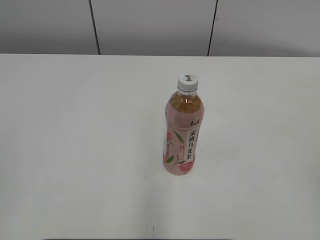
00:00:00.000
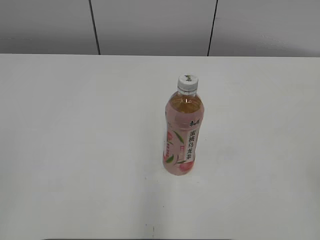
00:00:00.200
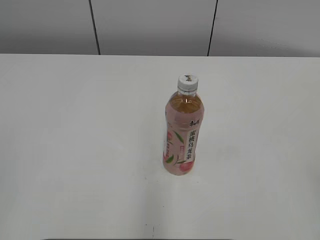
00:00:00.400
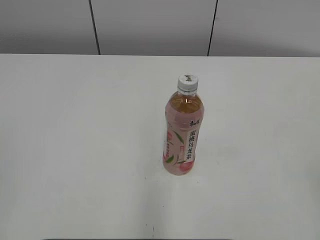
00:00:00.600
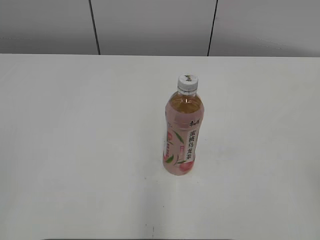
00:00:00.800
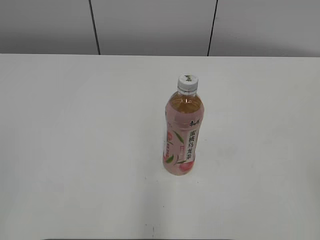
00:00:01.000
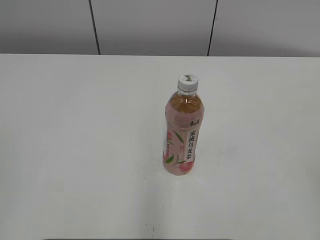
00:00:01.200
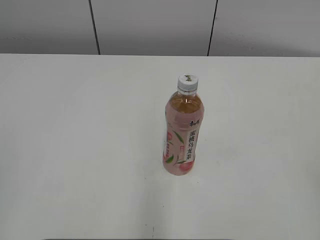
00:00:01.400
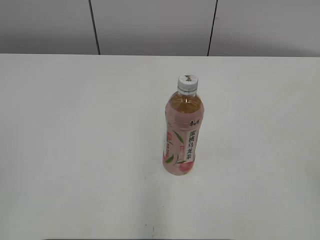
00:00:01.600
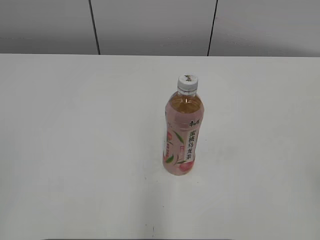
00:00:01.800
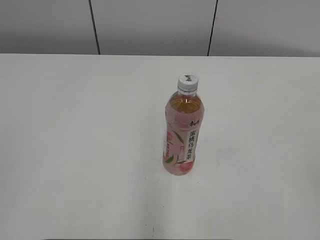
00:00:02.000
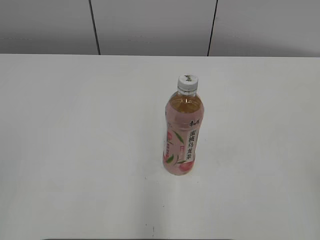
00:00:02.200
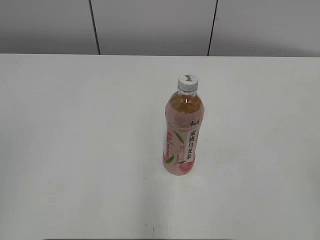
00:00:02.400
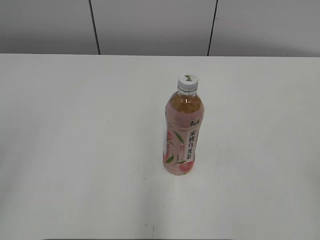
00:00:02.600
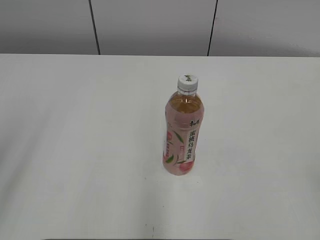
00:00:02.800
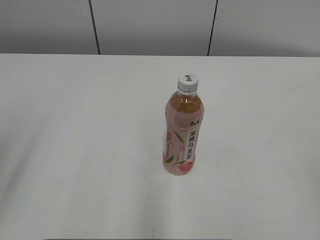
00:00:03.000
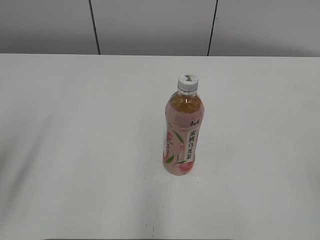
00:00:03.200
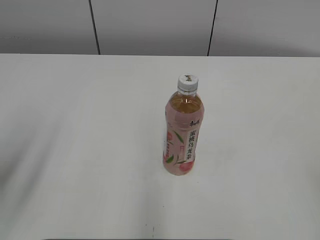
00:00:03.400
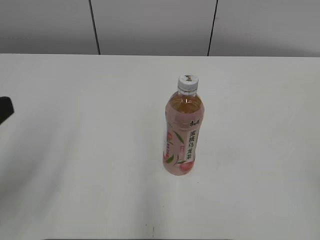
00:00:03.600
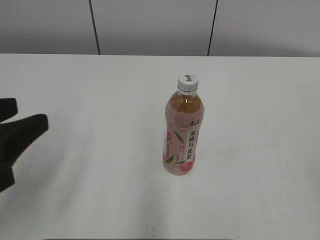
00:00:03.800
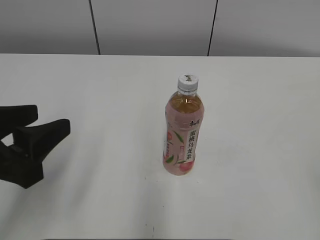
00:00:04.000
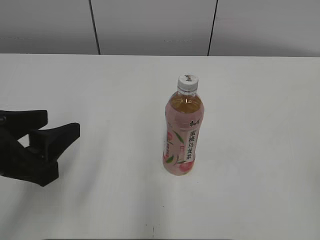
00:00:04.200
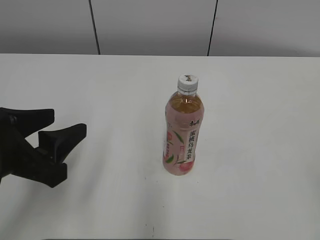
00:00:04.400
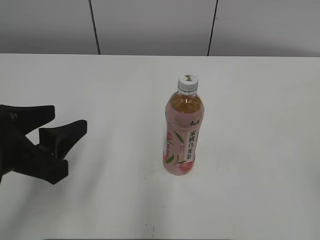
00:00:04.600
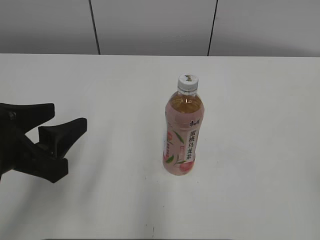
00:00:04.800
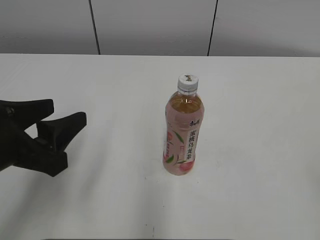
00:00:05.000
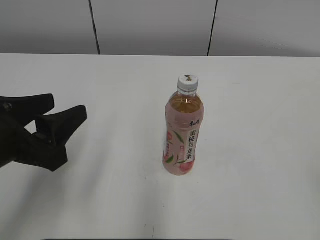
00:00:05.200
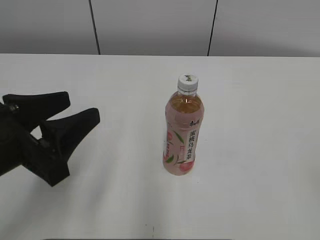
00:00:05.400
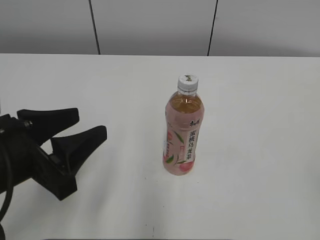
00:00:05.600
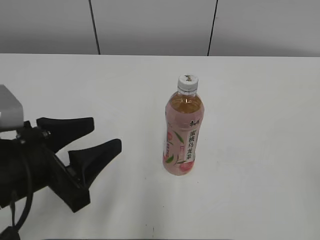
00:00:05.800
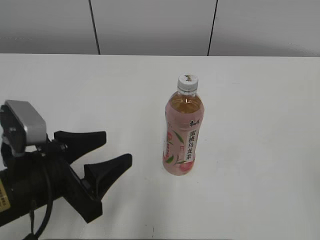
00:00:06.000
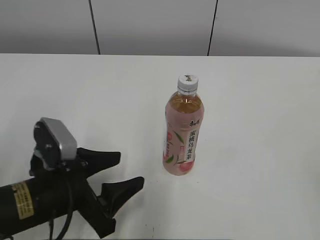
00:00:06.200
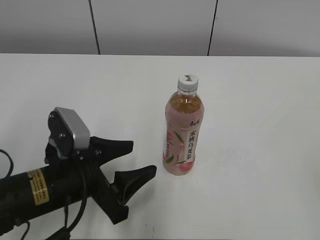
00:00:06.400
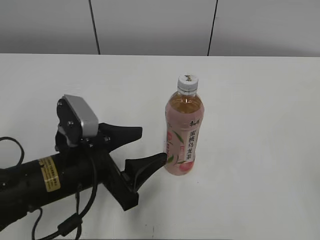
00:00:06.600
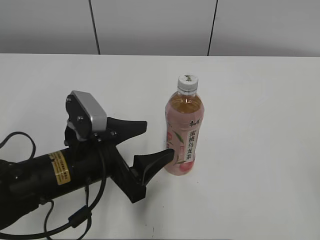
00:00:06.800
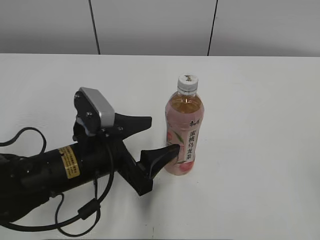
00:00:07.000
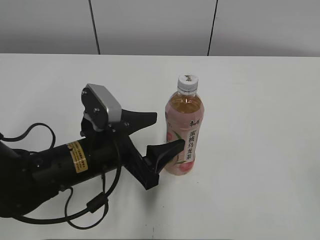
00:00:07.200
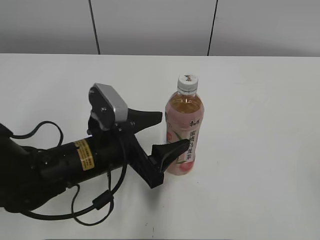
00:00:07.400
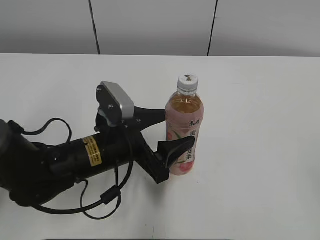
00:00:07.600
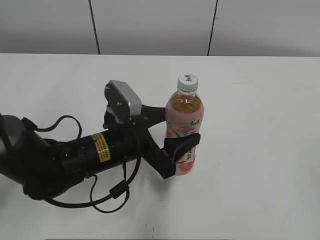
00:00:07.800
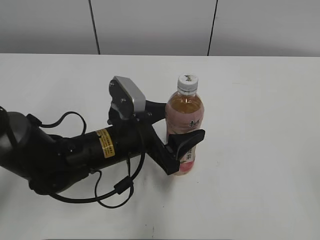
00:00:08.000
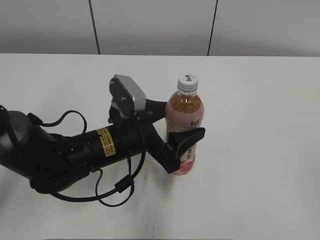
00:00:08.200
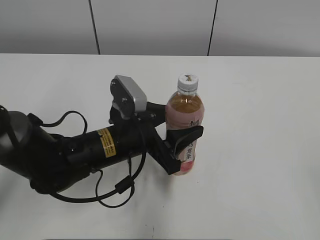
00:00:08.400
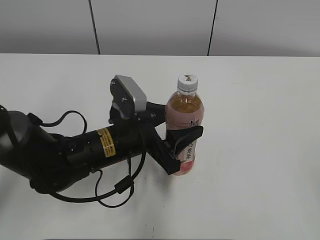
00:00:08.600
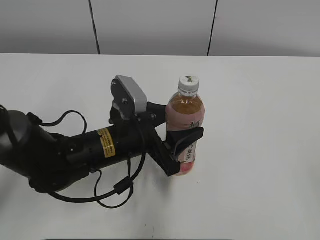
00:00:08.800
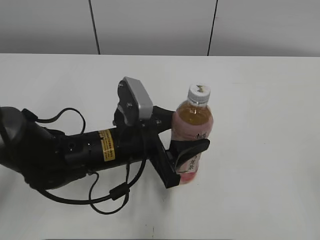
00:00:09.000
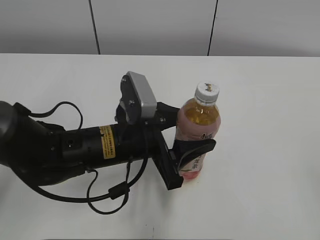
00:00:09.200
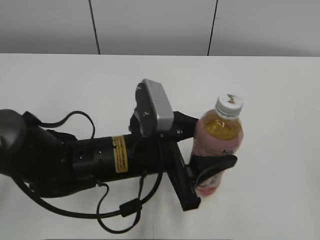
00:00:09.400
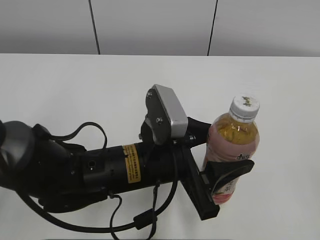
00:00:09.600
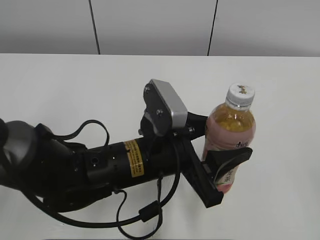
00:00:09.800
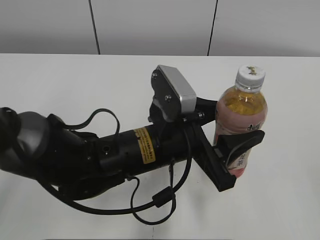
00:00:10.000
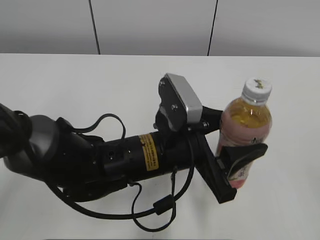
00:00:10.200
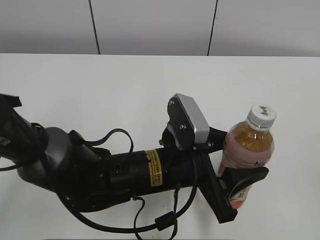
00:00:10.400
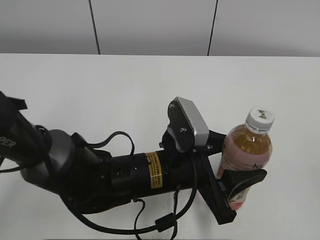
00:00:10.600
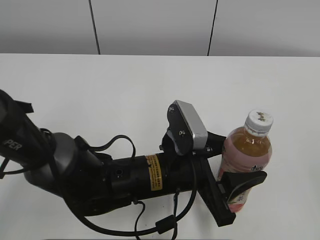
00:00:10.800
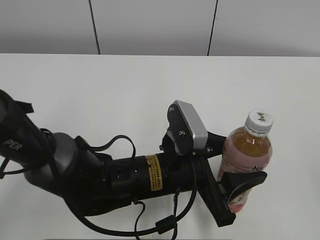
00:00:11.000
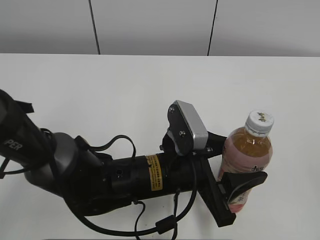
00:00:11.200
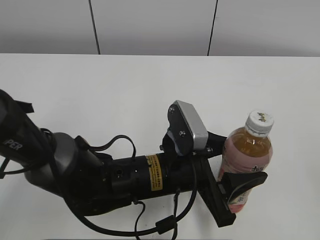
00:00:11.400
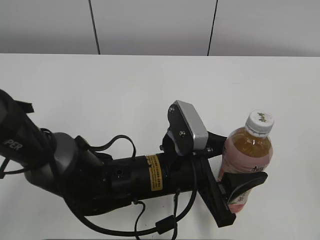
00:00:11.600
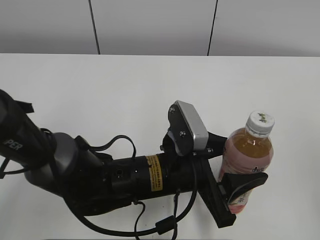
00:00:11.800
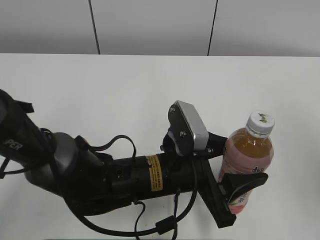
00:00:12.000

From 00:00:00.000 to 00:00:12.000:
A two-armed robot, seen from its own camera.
Step, from 00:00:00.000 to 00:00:08.600: Grab the Peach Oolong Tea with the left hand.
From 00:00:03.000 to 00:00:04.400: The left gripper is displaced to the right and downward by roughly 15 cm.
From 00:00:04.400 to 00:00:06.000: The left gripper heads downward, covering some 5 cm.
From 00:00:06.000 to 00:00:07.600: The left gripper goes about 10 cm to the right and forward.
From 00:00:07.600 to 00:00:09.000: The left gripper closes.
From 00:00:09.000 to 00:00:10.400: The left gripper shifts about 5 cm to the right.
From 00:00:10.400 to 00:00:12.000: The right gripper shifts about 10 cm forward.

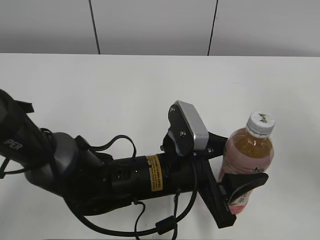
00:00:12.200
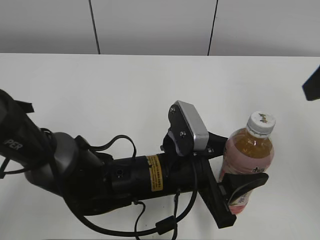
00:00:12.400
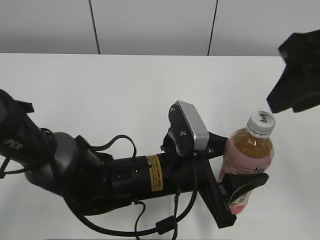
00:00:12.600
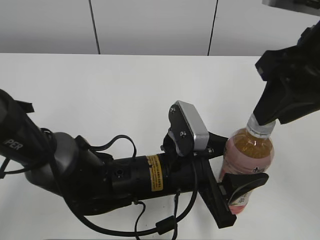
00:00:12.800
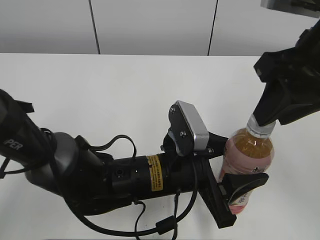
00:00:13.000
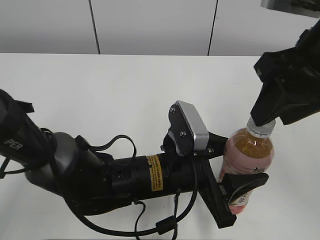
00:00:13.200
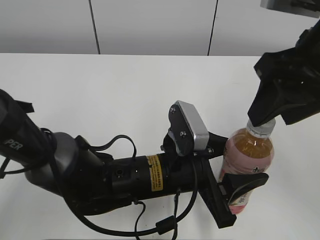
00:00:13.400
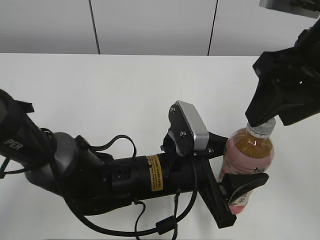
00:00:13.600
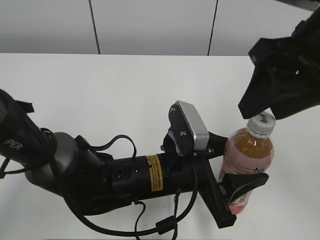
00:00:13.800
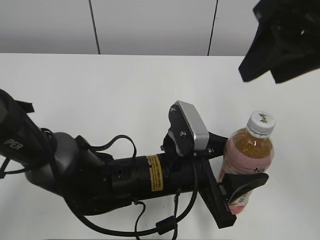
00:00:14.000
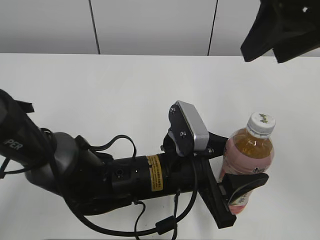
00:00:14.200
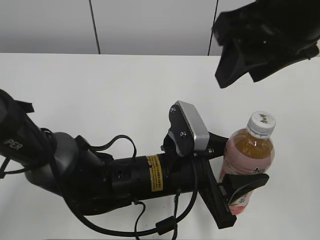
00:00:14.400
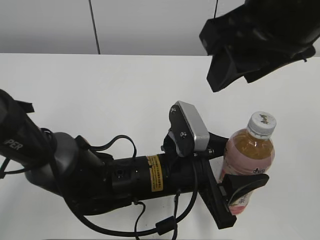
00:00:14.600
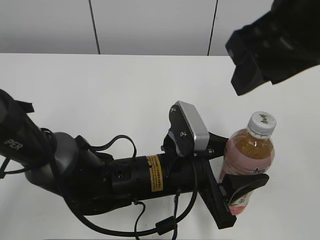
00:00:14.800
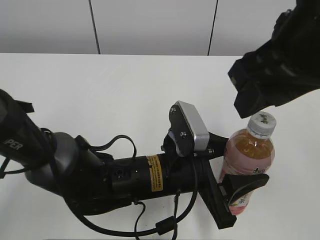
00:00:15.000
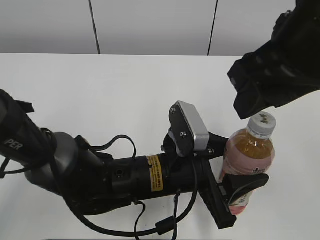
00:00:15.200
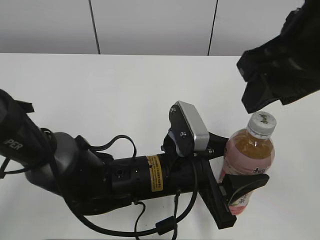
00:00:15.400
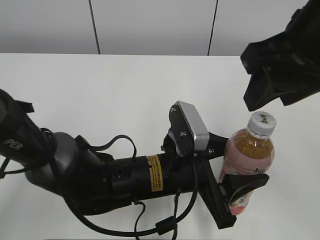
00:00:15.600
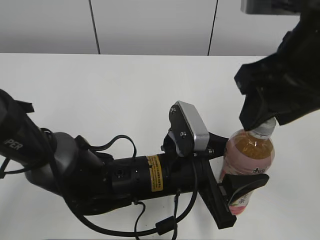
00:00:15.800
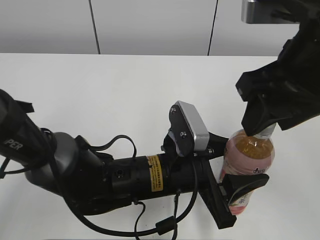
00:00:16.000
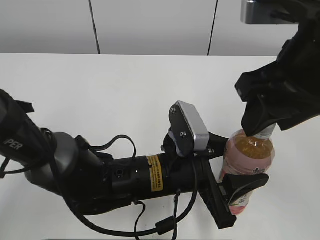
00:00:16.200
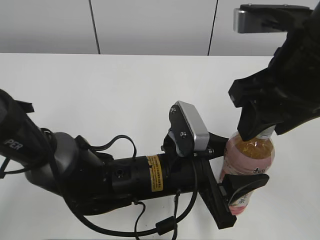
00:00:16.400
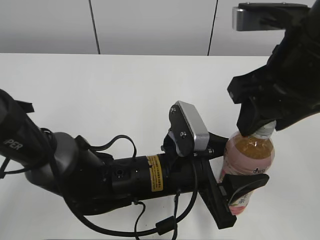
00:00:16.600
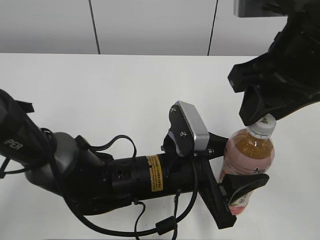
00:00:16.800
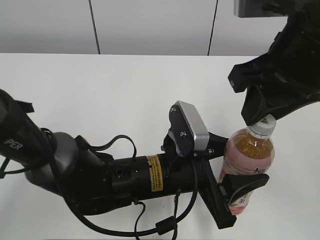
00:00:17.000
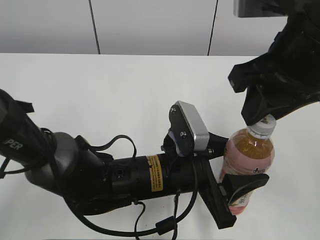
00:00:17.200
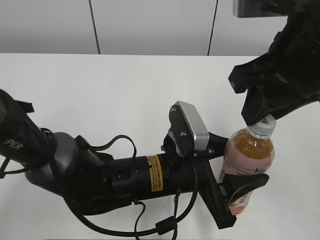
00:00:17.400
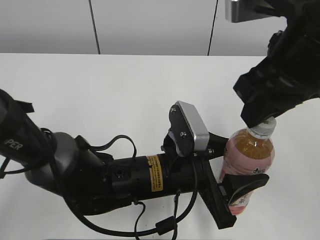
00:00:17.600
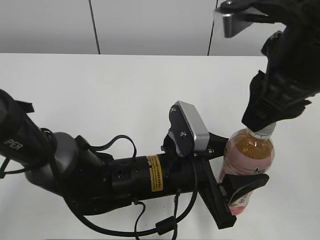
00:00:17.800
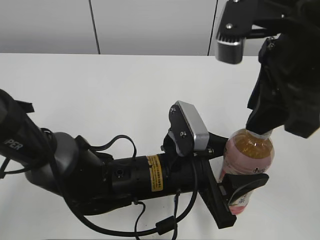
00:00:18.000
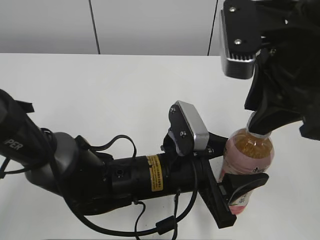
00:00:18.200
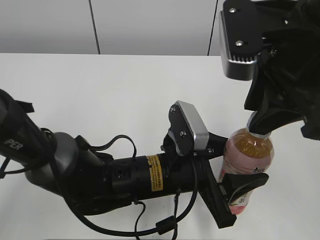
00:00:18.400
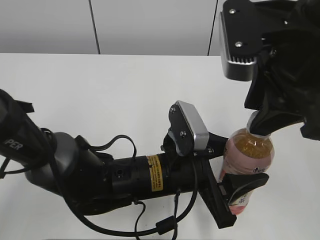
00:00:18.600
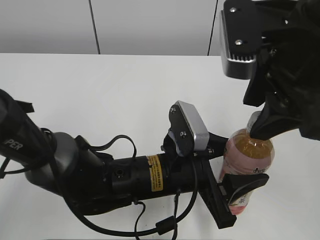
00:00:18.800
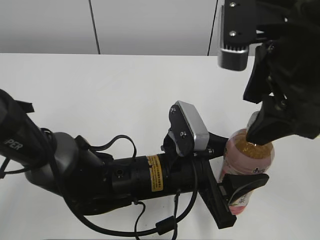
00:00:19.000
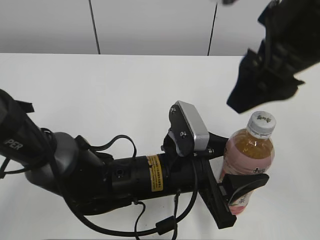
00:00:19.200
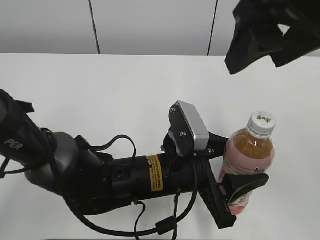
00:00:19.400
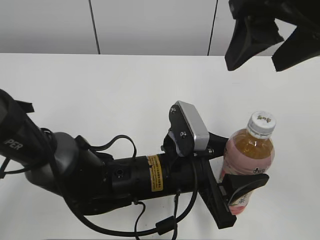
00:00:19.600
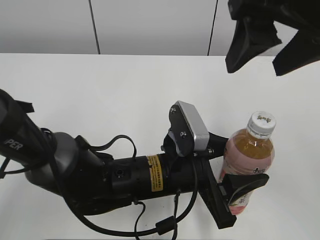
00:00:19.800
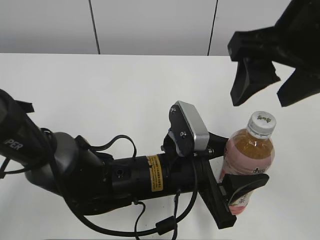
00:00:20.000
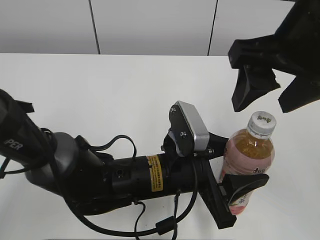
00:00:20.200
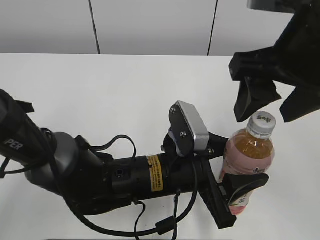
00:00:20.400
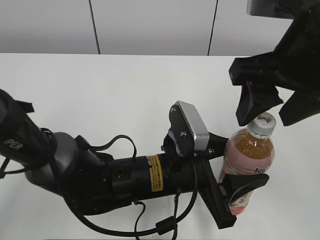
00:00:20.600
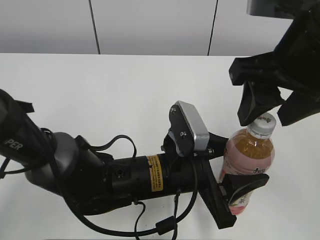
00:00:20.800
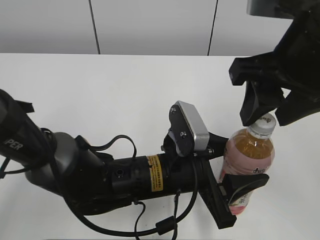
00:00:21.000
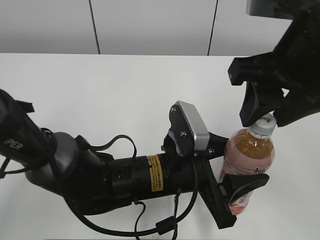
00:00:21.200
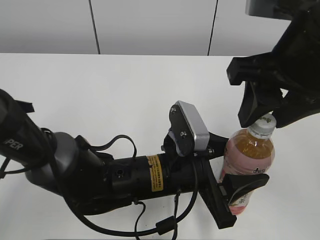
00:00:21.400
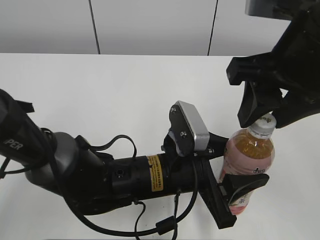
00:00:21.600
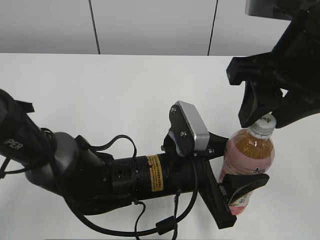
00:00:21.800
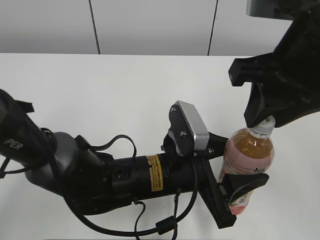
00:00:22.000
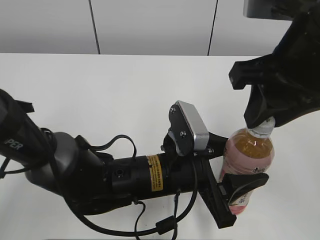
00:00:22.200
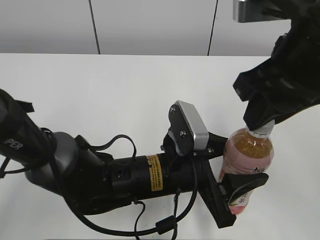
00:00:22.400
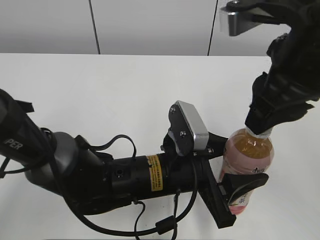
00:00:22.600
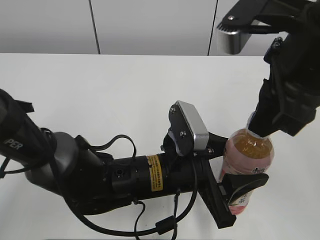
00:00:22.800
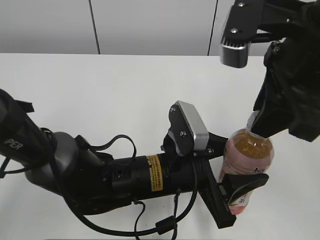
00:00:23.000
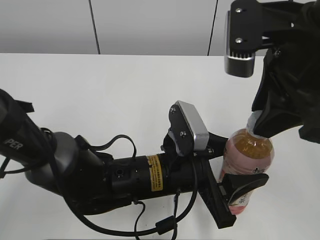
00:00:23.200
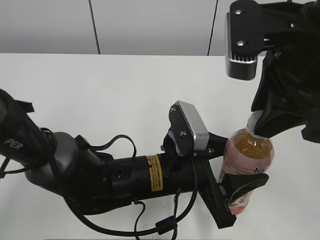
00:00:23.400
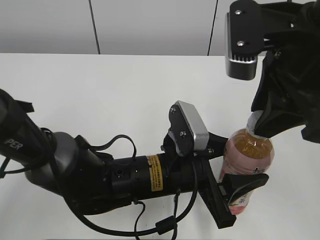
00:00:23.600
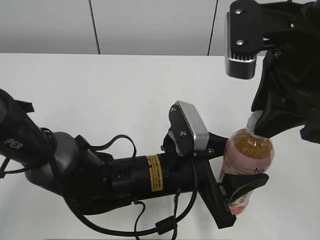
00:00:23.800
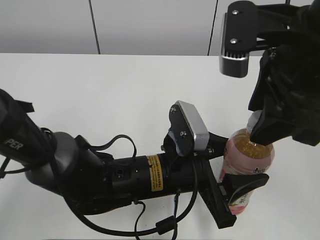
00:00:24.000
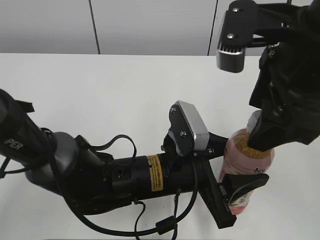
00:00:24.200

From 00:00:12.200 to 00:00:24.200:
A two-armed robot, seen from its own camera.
Step, from 00:00:12.200 to 00:00:17.000: Move the Peach Oolong Tea from left to right.
From 00:00:12.200 to 00:00:13.800: The right gripper is displaced to the left by roughly 10 cm.
From 00:00:15.200 to 00:00:16.600: The grippers move only a little.
From 00:00:16.600 to 00:00:18.200: The right gripper closes up.
From 00:00:18.200 to 00:00:19.800: The right gripper opens up.
From 00:00:19.800 to 00:00:21.200: The right gripper is displaced downward by about 5 cm, and closes its fingers.
From 00:00:21.200 to 00:00:22.600: The right gripper closes up.
From 00:00:22.600 to 00:00:24.200: The right gripper opens its fingers.
